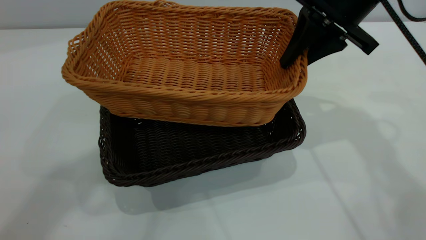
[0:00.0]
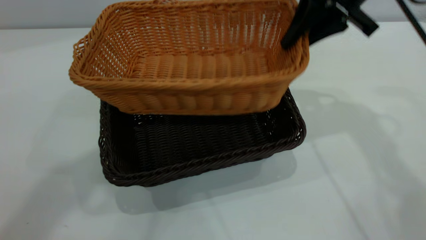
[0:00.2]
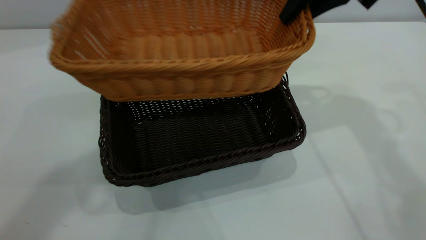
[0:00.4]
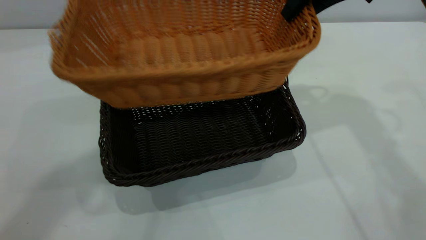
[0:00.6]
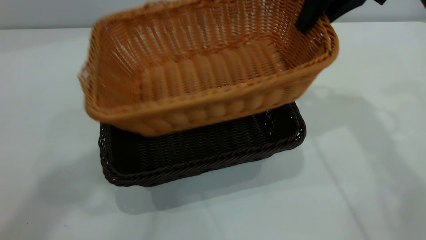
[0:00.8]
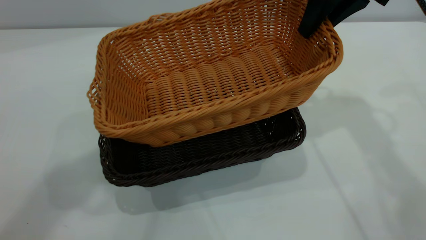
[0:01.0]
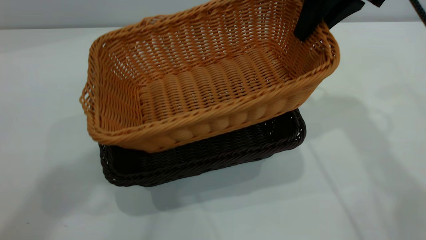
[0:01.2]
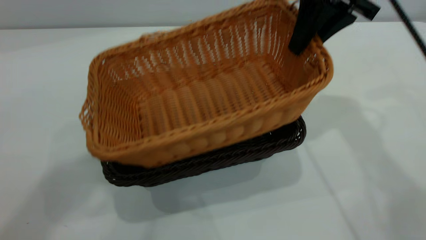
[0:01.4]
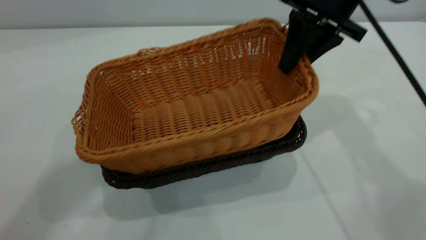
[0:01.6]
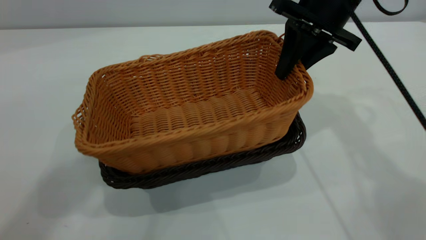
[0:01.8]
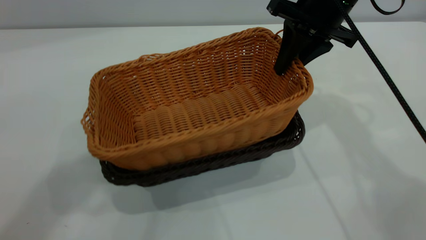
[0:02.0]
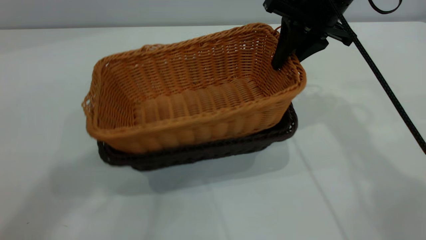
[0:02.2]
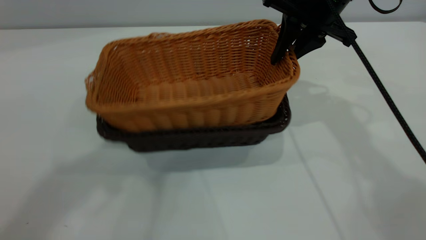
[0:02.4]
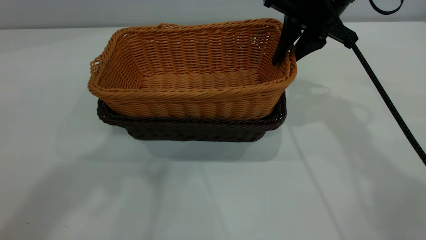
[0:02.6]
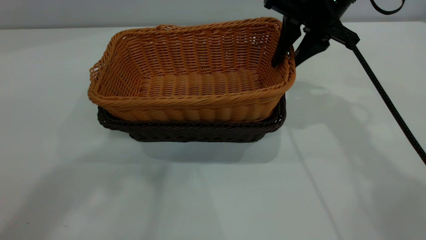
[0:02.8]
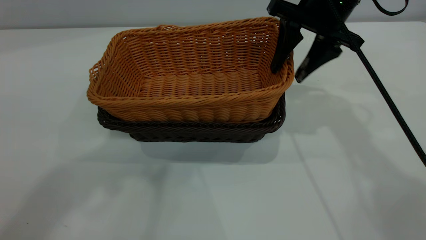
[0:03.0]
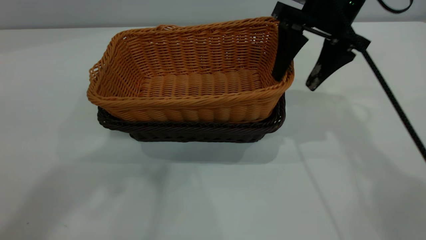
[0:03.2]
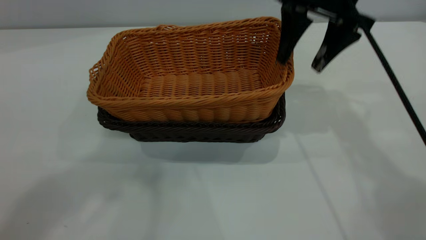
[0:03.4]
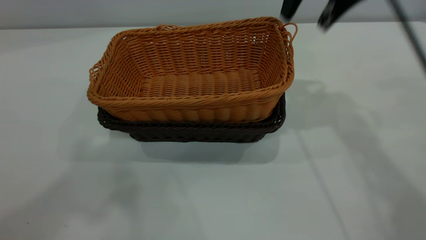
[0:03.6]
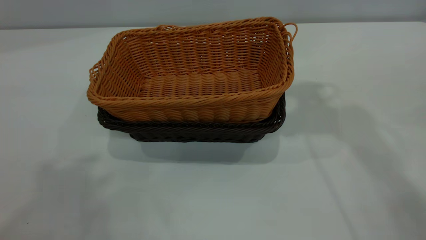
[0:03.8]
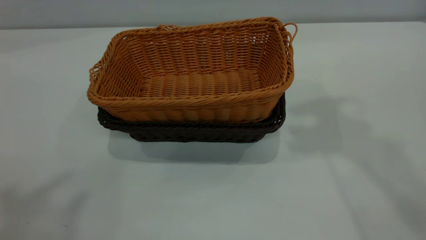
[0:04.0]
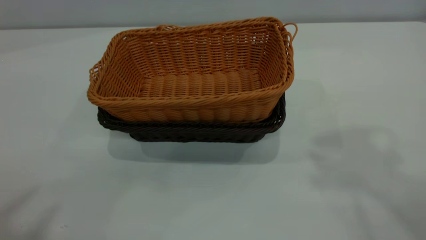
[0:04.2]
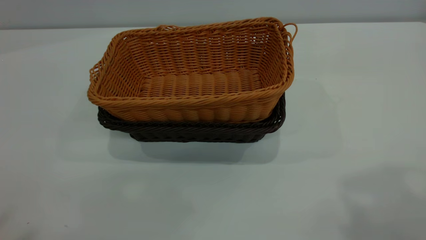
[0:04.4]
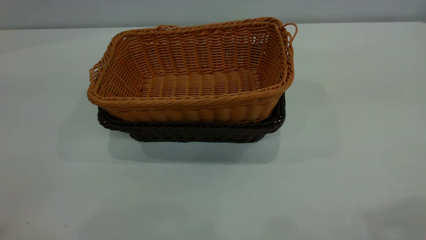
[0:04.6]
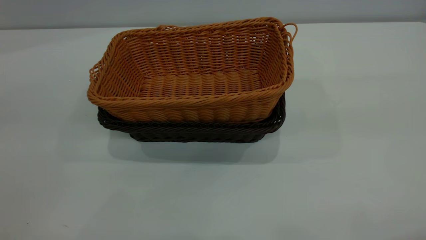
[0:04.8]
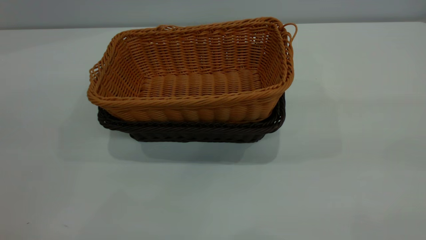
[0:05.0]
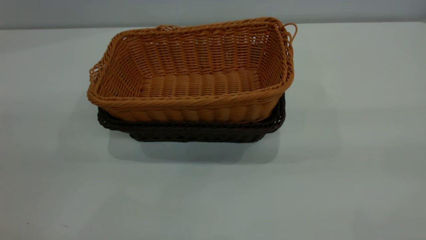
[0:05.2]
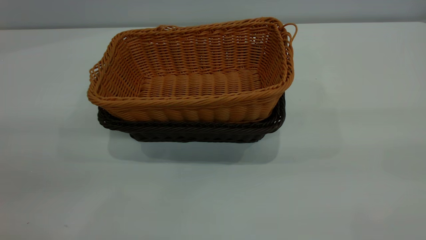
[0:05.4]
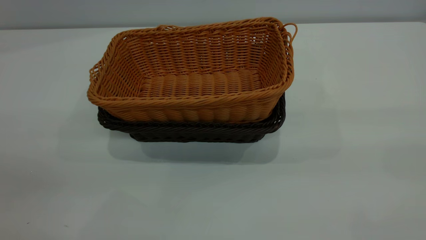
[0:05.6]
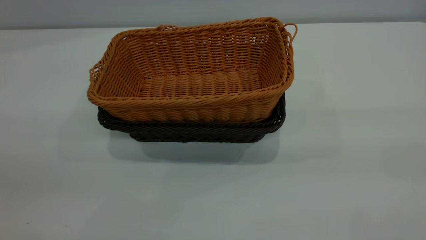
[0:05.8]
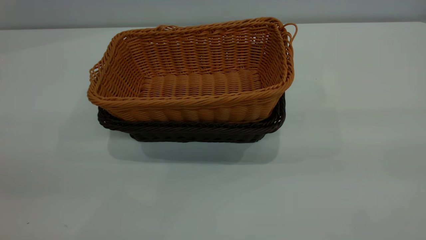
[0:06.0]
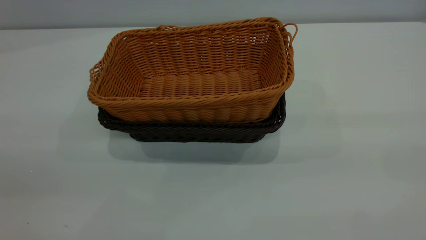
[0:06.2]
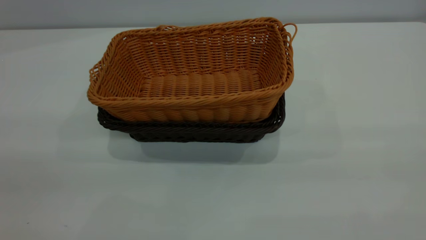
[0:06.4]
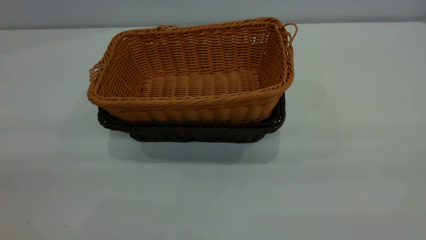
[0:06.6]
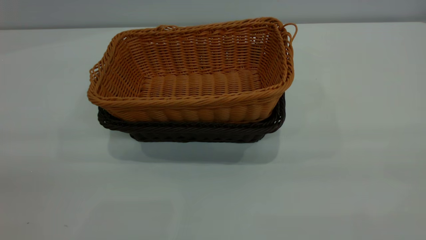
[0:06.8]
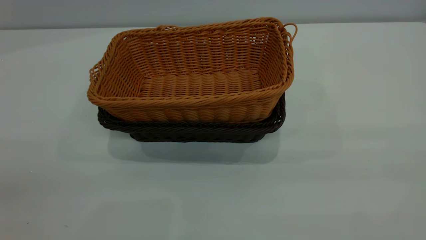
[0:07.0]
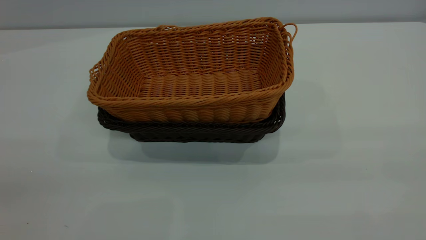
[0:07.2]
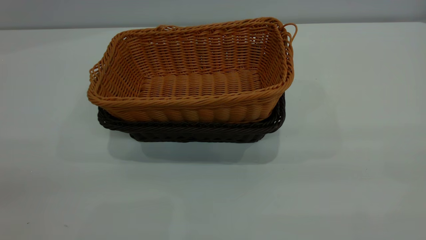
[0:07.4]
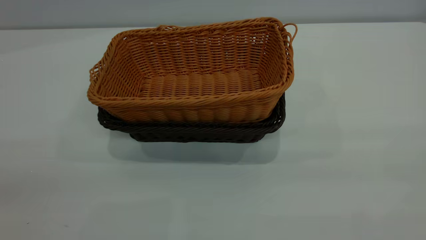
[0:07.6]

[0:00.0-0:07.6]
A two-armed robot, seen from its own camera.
Task of the whole recording: the left gripper grasp the black basket and place it in the center of the table, the right gripper grasp the brown basket and place it inside the black one.
Step, 0:00.0 to 0:03.4: Place the light basket on the dark basket.
0:01.6 to 0:03.0: The right gripper opens its fingers.
0:03.0 to 0:04.6: The left gripper is displaced backward and to the left by roughly 25 cm, while the right gripper moves backward and upward, roughly 35 cm.
